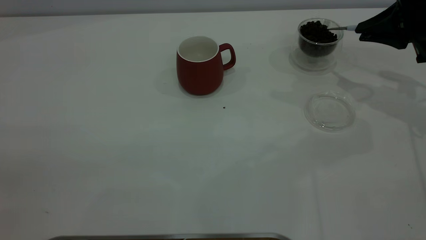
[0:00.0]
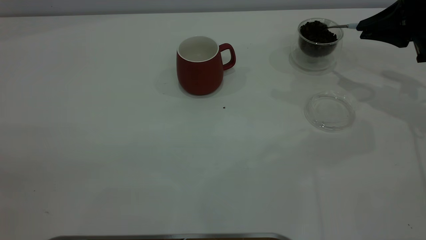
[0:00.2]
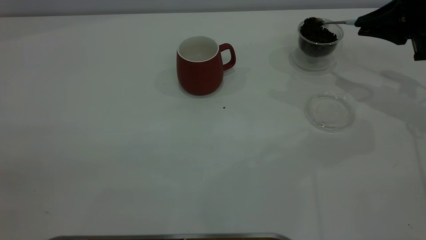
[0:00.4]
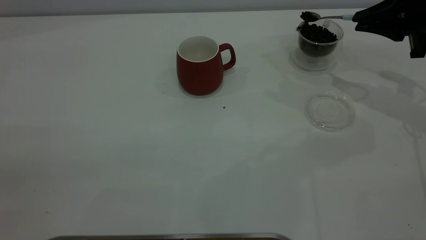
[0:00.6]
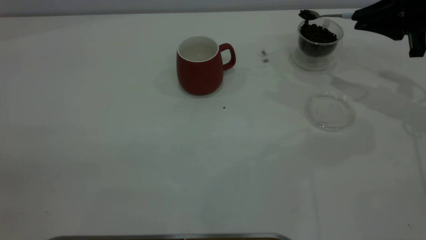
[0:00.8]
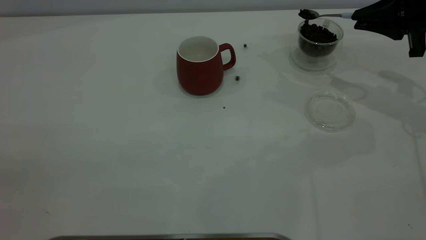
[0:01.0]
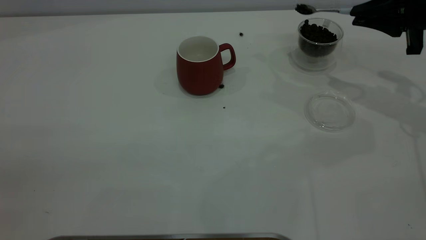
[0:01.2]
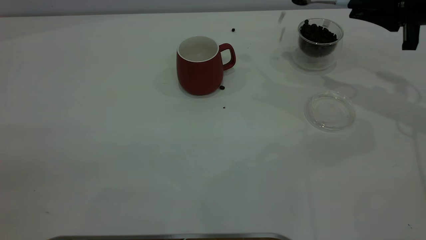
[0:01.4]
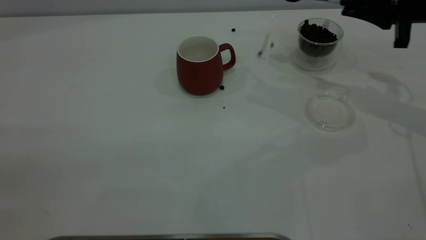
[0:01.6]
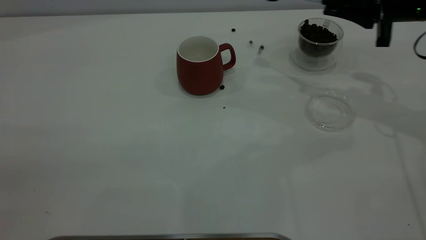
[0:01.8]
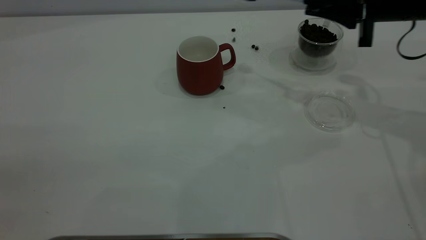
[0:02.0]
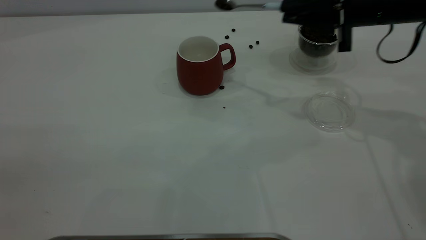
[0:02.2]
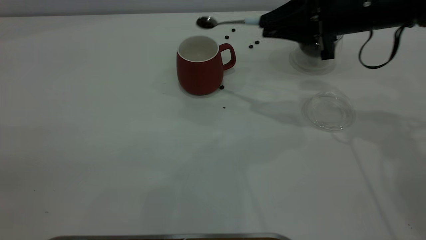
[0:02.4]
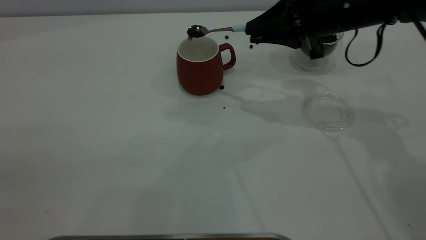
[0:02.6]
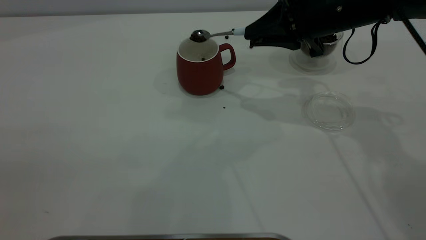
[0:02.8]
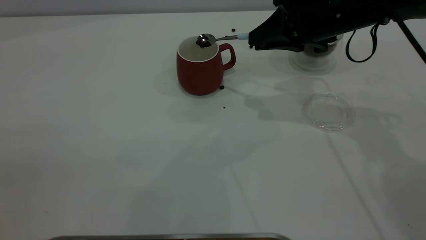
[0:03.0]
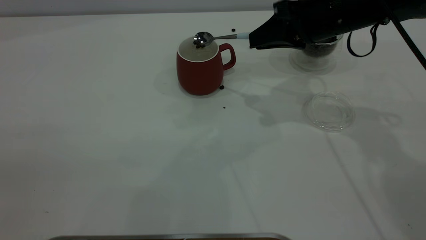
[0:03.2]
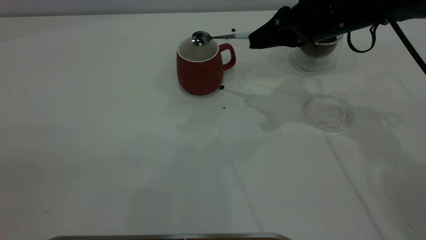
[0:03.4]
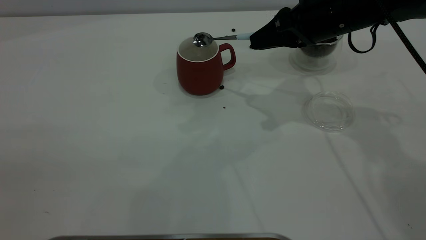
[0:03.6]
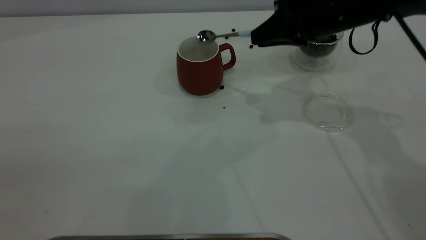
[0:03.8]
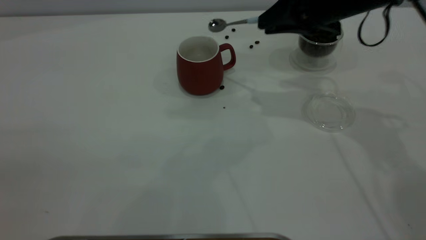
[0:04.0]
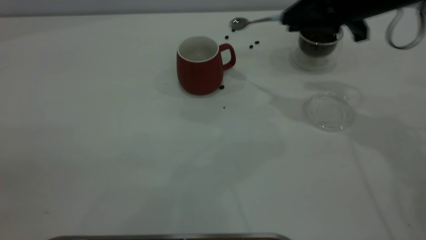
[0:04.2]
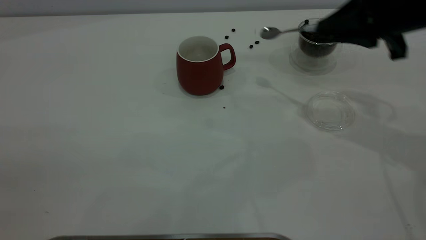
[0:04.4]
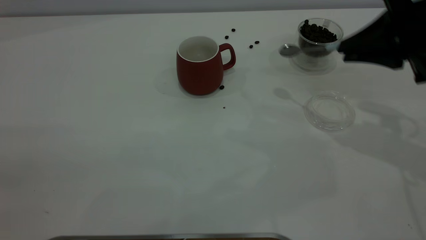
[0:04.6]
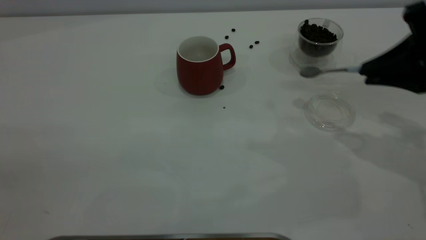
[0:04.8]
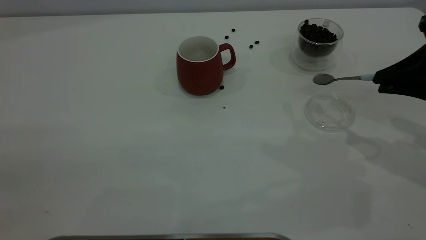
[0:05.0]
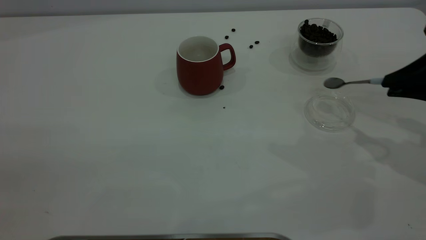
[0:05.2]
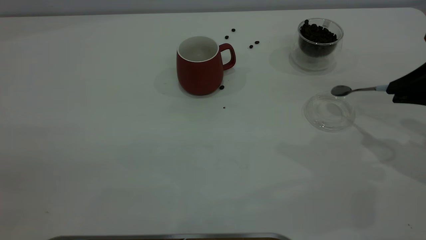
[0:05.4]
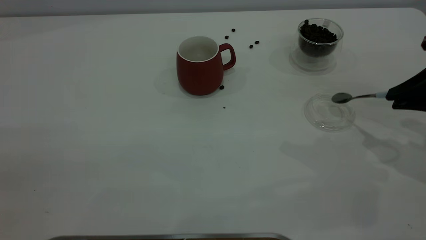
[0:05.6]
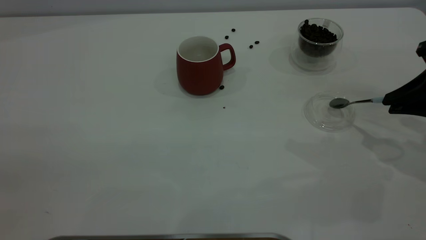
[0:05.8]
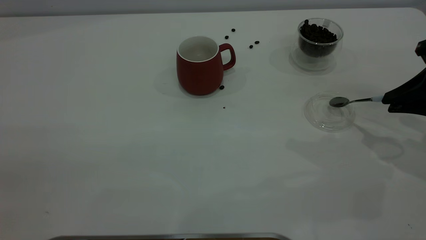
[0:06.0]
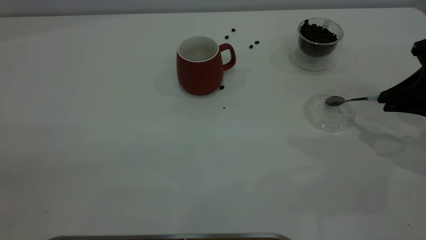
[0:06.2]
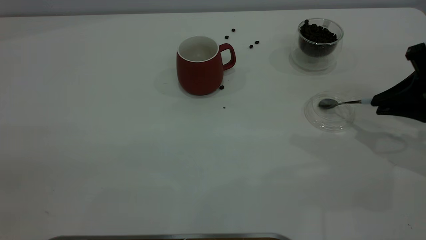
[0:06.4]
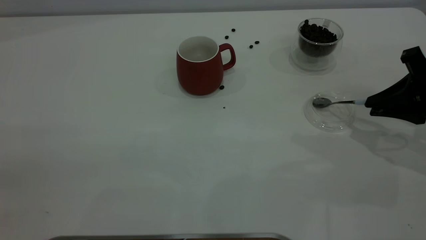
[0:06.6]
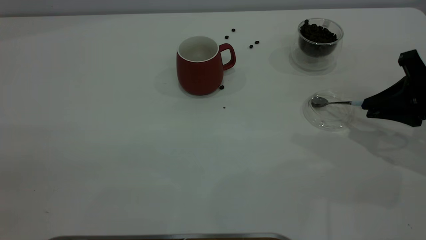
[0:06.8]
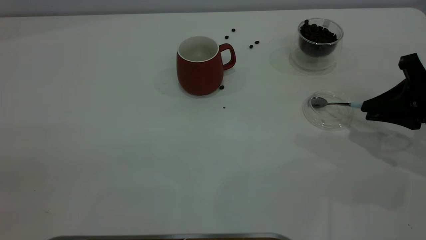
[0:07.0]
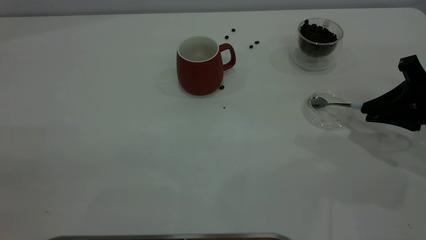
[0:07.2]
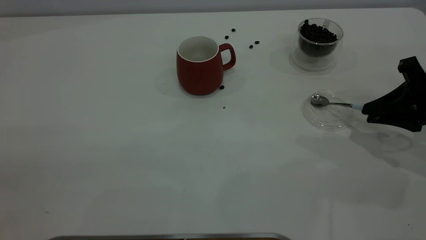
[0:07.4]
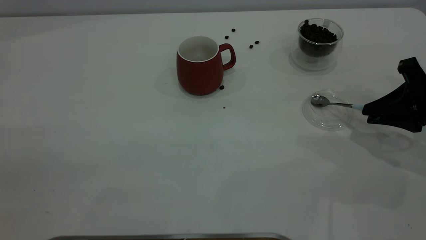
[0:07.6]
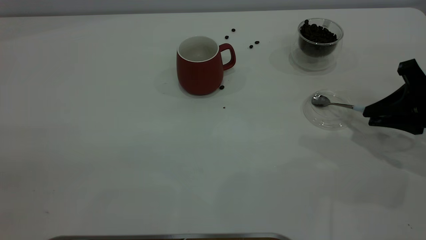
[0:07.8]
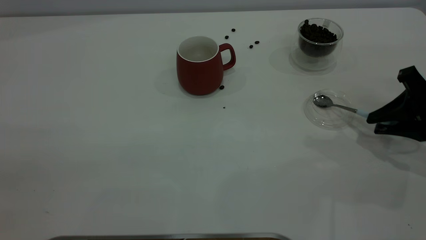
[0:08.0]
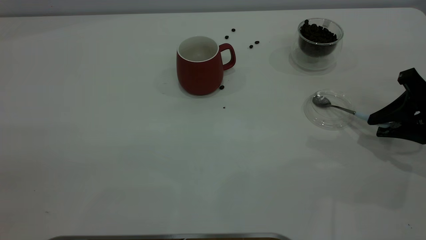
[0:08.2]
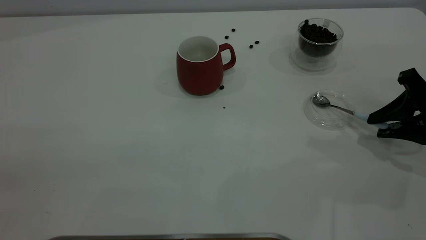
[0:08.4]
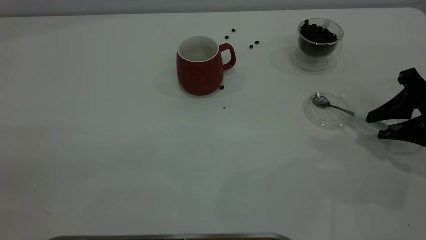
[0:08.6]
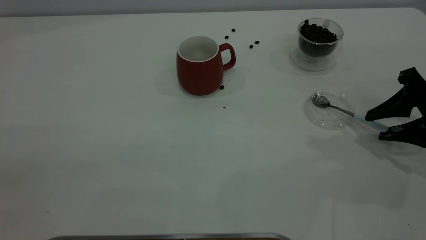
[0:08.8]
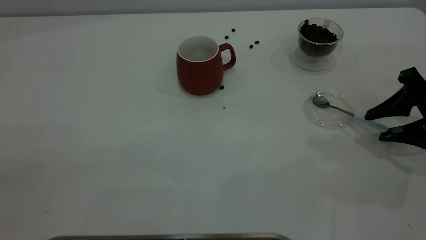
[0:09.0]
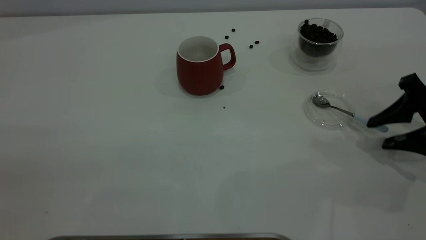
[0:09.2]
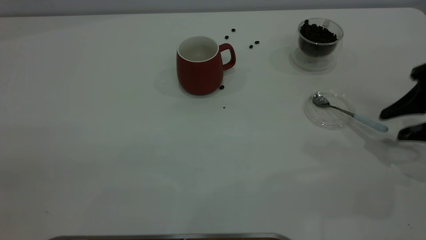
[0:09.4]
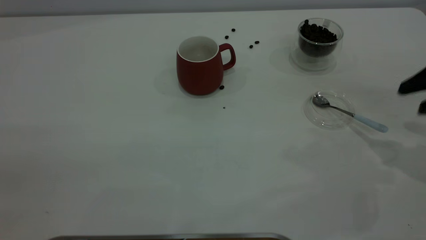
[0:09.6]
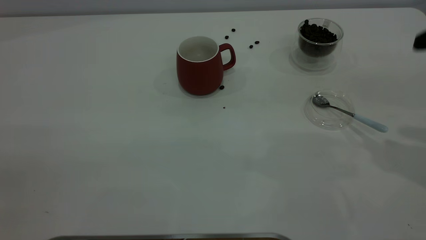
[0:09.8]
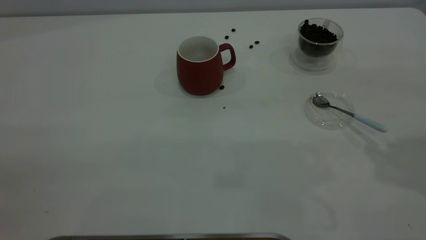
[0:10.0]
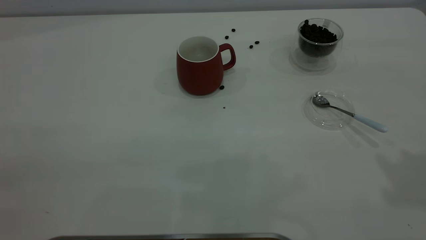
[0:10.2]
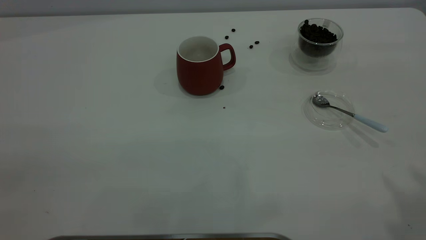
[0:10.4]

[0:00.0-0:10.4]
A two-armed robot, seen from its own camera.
Task of the whole recording: the left gripper place the red cup in the center of the table, the right gripper take the blue spoon from the cup lid and scoop out the coffee beans from the coffee cup and put them into the red cup, the right gripper put the spoon back into the cup lid.
Step, 0:00.0 to 0:03.8: Scoop a spoonful of beans into the cup.
Step, 0:04.0 to 0:09.2: Place the spoon back in its original place.
0:00.0 to 0:01.4: The grippers make only small movements.
0:01.4 to 0:03.0: The right gripper shifts about 15 cm to the left.
0:03.0 to 0:04.4: The right gripper heads to the right and backward, covering roughly 10 cm.
0:04.4 to 0:06.0: The right gripper travels to the right and downward by roughly 10 cm.
0:06.0 to 0:07.4: There are only small adjustments of the grippers.
0:07.4 to 0:09.0: The right gripper opens.
0:09.0 to 0:10.4: The right gripper goes some 35 cm upward and backward.

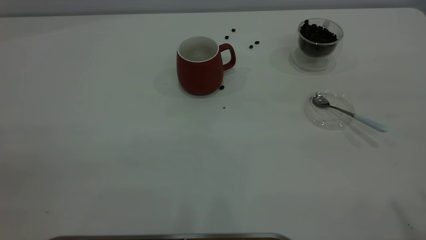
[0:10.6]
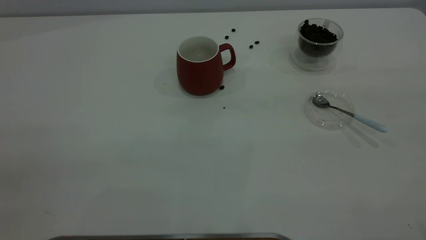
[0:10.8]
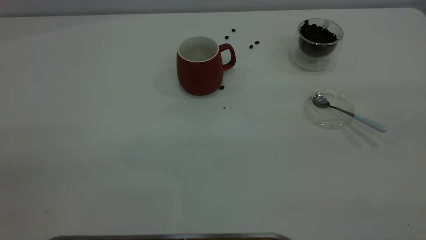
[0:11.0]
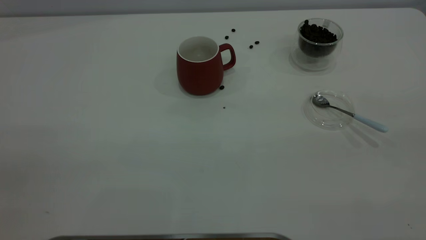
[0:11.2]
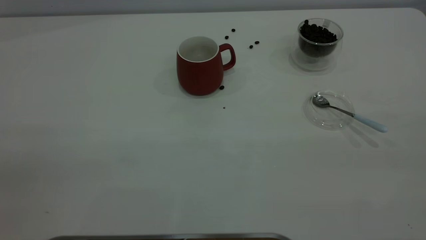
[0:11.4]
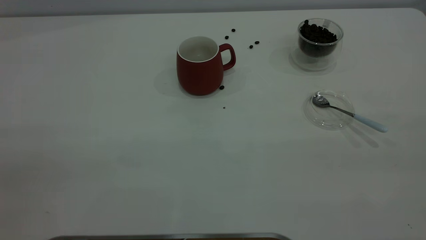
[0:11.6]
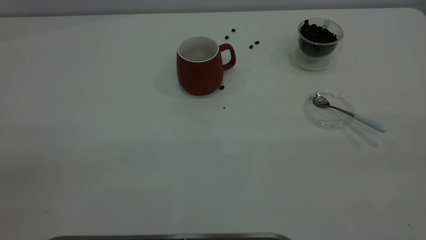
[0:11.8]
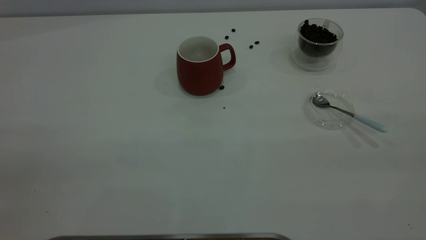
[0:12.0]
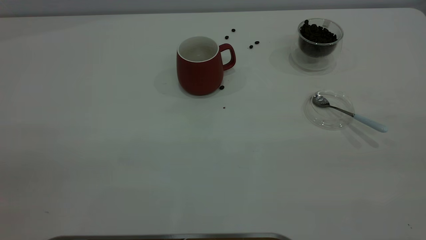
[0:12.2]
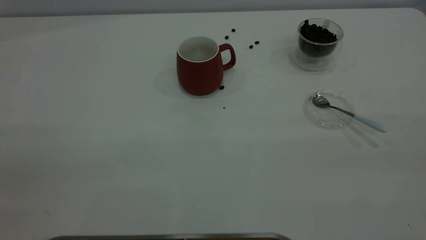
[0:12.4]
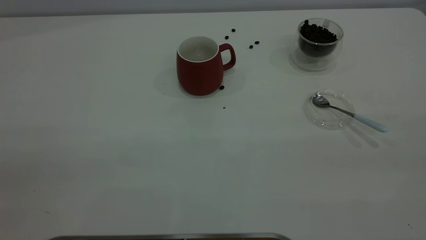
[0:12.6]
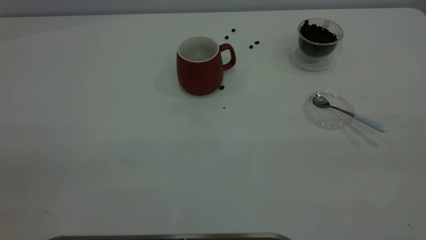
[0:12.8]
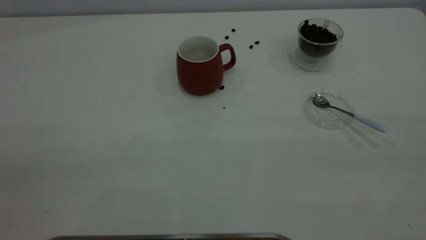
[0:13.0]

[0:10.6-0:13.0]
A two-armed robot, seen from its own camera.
Task of the whole recording: the left gripper place the red cup in the center of the table, the right gripper take the blue spoon from the cup lid and scoop out the coffee beans from the coffee cup and put them into the red cup, the right gripper put the spoon back into the cup lid.
0:11.8 to 0:13.0: The two grippers keep their place.
